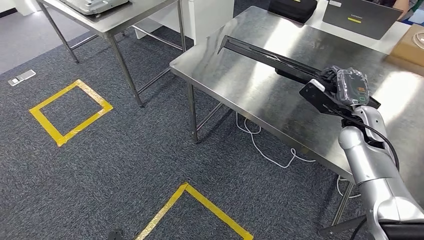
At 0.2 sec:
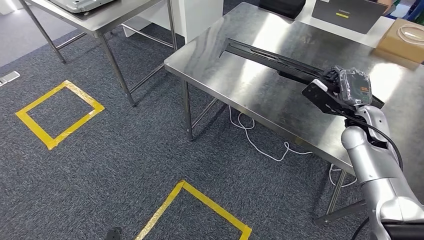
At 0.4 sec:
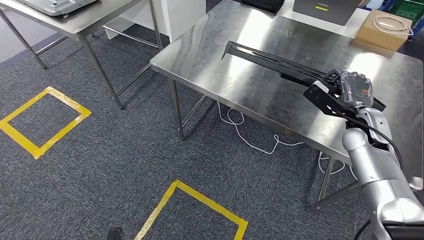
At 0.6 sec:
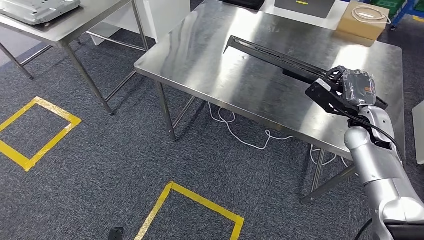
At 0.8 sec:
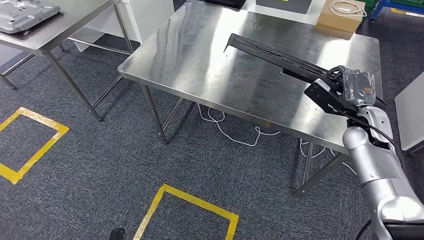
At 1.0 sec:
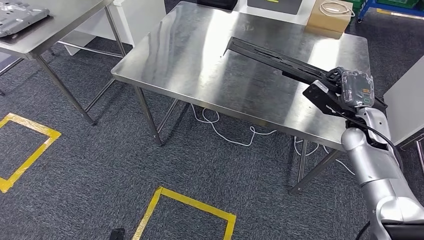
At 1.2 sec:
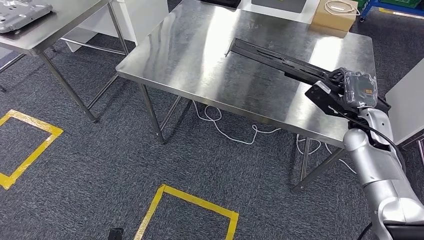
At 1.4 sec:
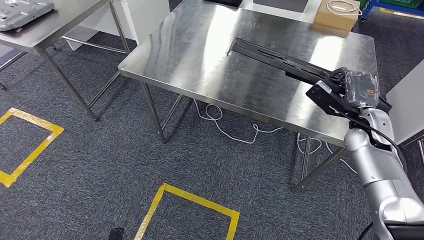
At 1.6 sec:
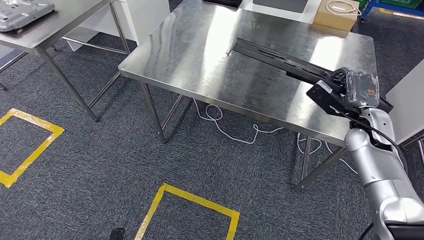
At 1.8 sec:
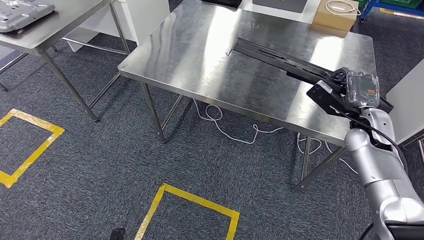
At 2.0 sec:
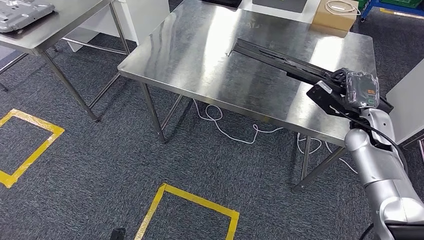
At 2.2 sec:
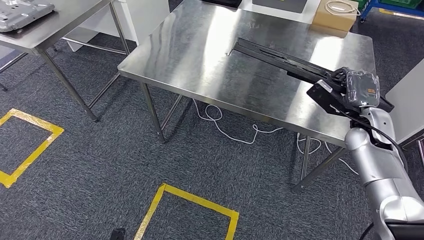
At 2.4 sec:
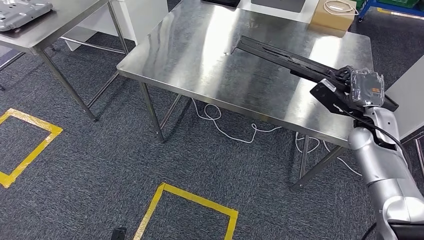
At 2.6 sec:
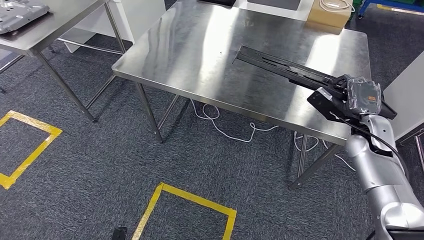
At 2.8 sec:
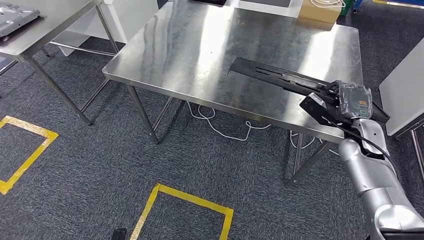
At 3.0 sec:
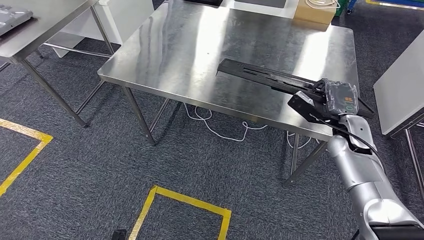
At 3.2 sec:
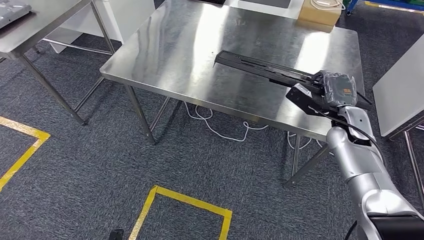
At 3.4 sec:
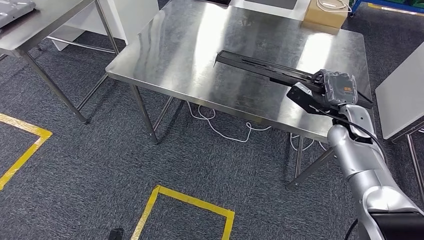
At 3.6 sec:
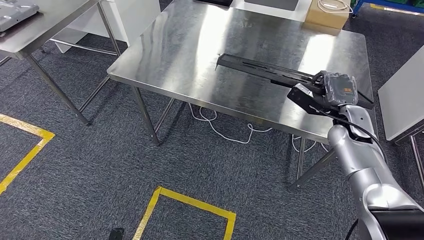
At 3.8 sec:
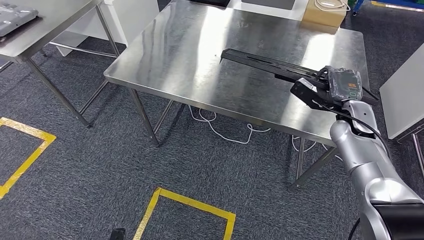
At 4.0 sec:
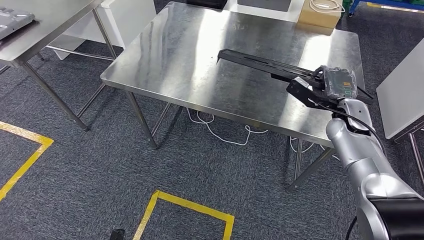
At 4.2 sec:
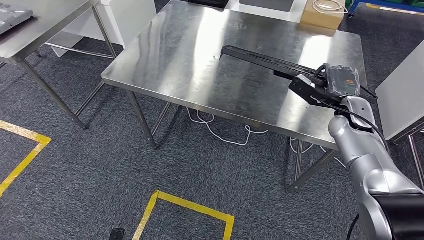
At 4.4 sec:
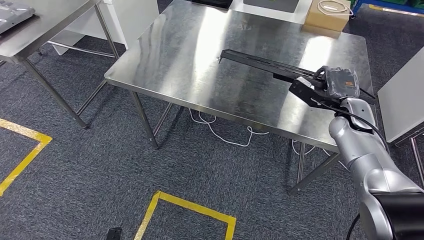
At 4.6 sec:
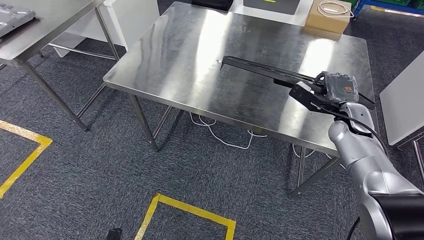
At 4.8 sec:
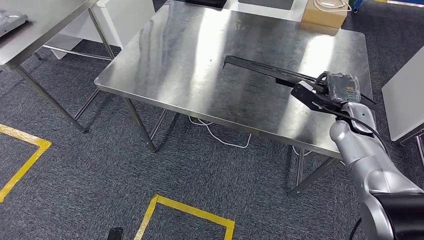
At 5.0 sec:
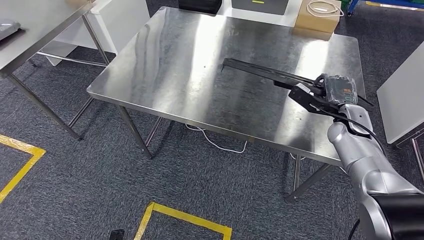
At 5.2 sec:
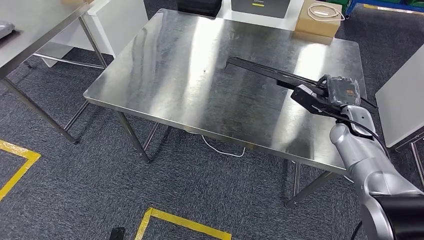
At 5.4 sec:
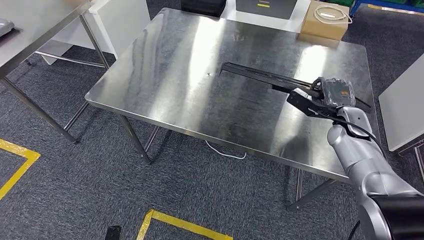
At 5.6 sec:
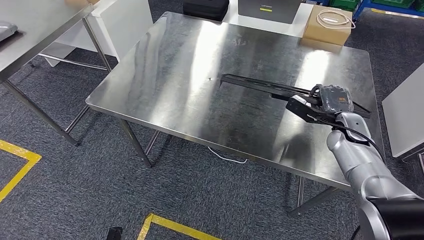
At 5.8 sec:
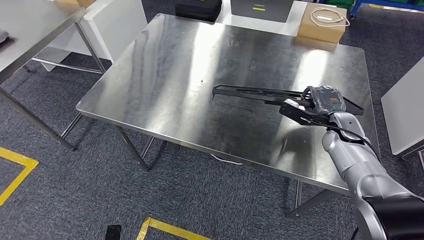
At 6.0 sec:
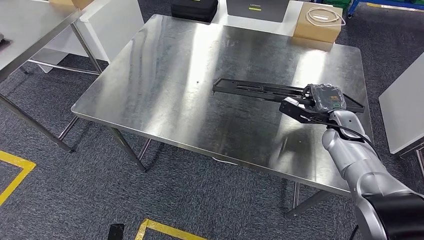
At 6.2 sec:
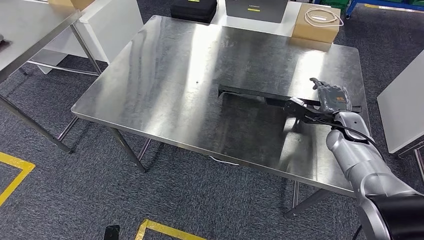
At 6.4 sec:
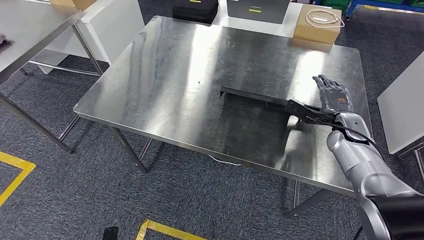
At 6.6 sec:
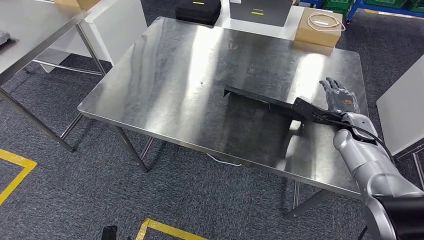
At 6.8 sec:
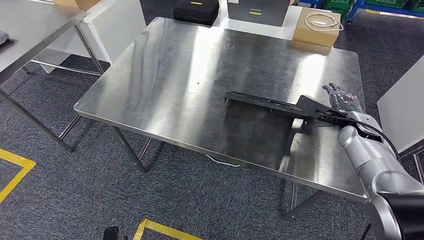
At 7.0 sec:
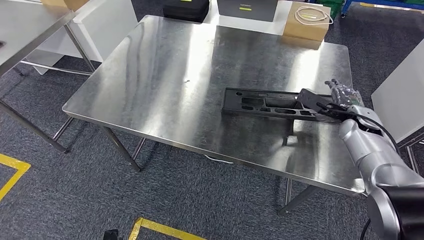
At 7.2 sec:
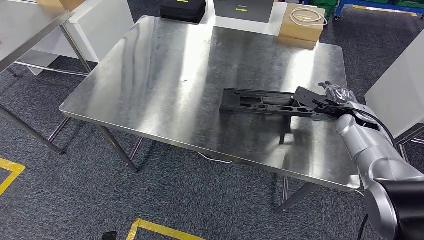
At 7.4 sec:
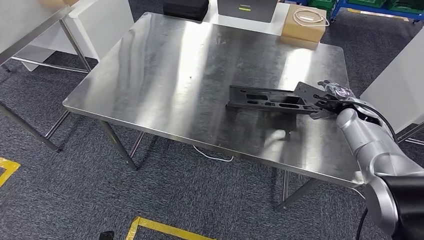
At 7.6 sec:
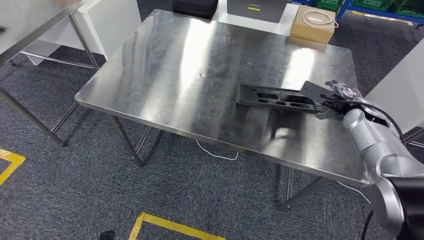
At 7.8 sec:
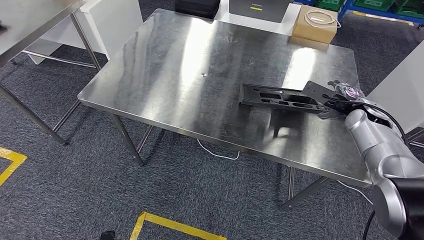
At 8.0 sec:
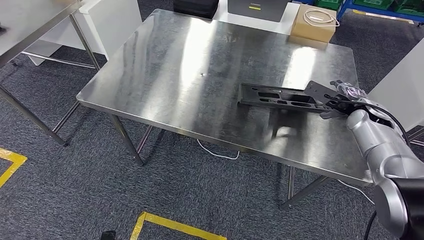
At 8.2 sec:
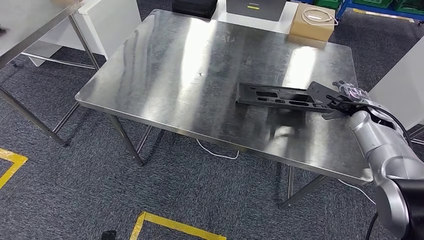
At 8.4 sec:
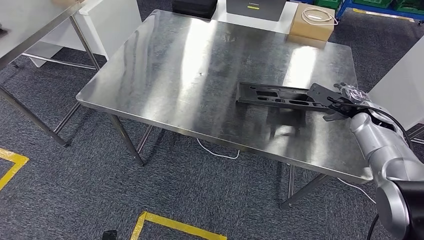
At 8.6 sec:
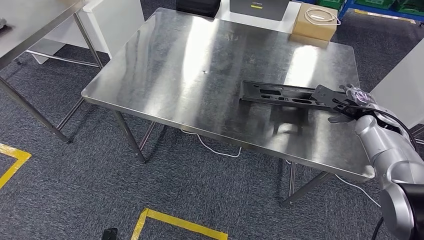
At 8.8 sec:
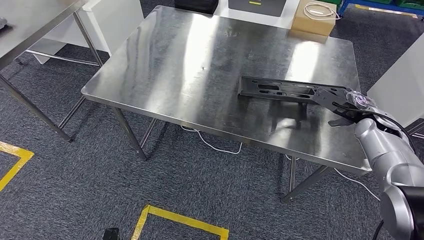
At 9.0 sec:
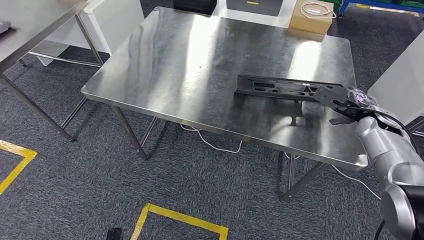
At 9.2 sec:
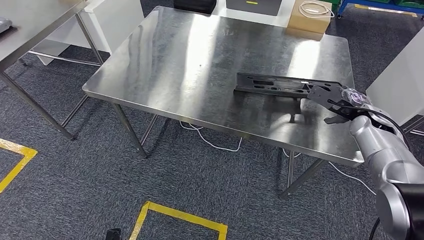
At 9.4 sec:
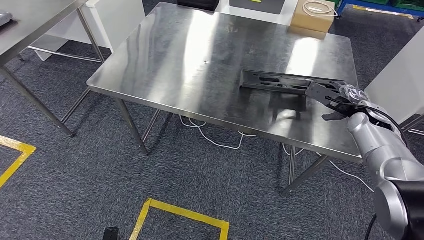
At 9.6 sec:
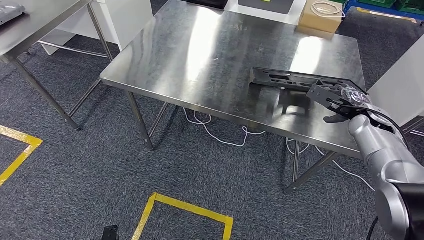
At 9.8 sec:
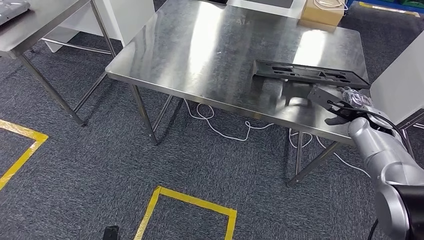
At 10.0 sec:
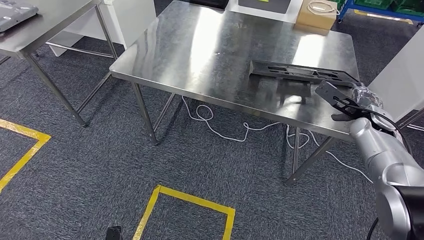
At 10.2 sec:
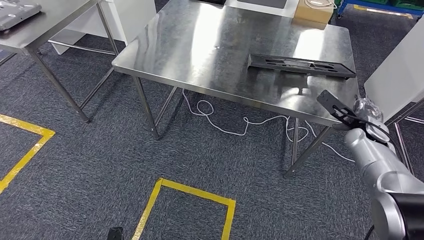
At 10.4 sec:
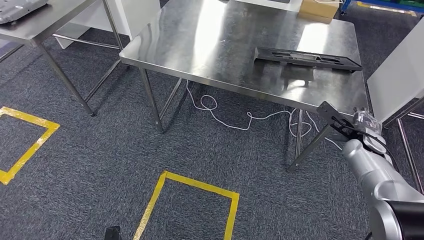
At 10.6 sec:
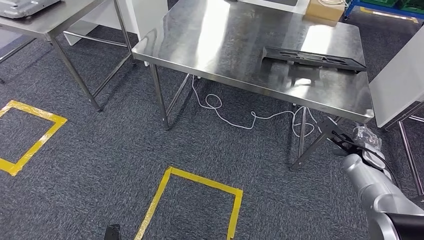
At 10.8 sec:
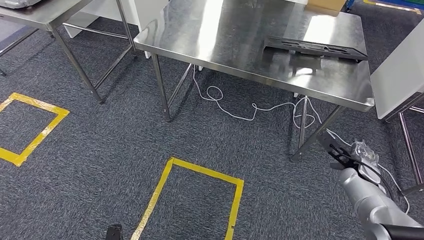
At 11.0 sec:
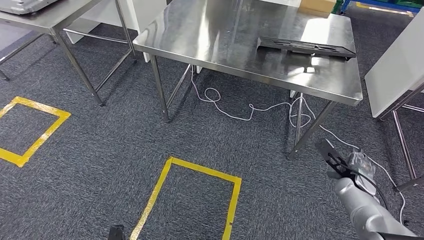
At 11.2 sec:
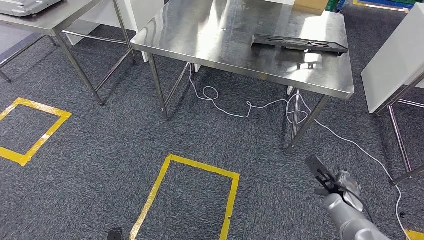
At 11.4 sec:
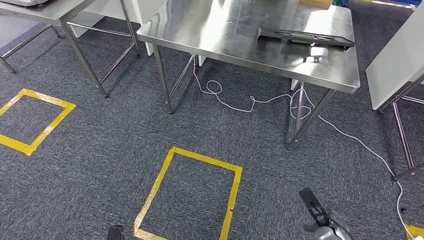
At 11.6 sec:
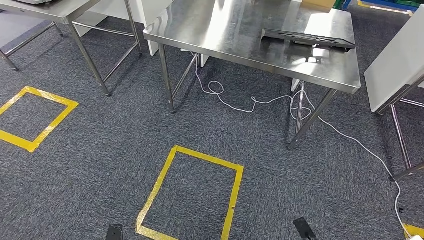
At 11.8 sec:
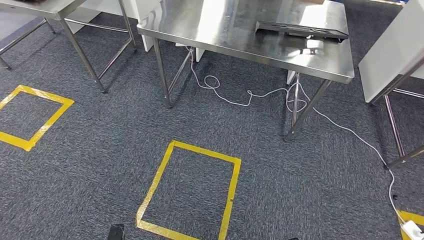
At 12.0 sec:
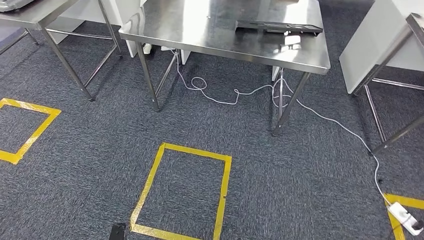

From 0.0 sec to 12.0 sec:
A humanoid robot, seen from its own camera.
Step, from 0.0 sec to 9.2 sec: Insert the large material into the corresponding slot on the workbench.

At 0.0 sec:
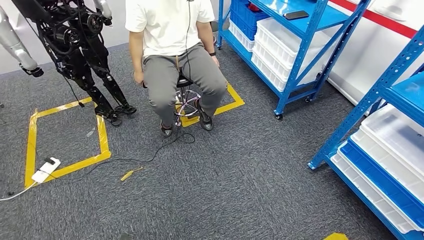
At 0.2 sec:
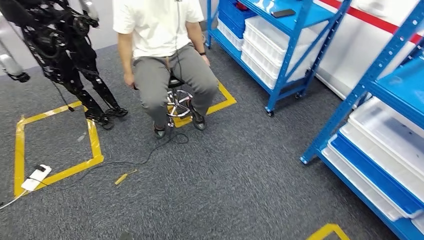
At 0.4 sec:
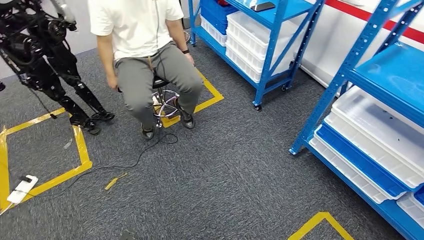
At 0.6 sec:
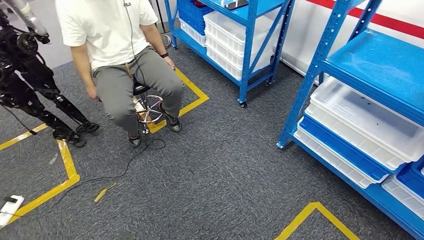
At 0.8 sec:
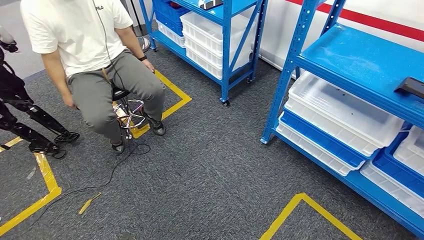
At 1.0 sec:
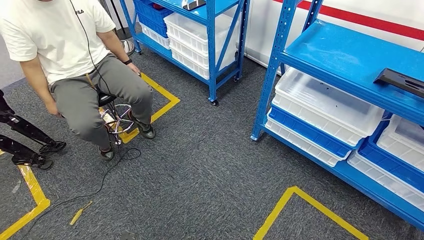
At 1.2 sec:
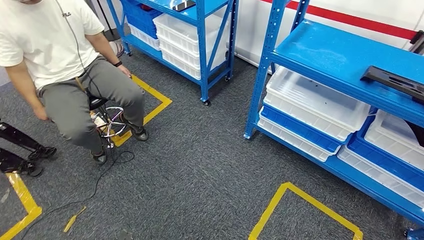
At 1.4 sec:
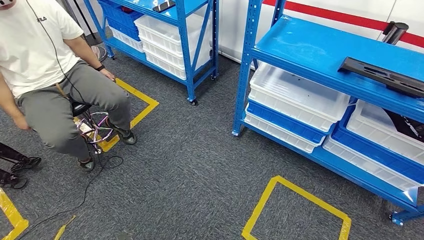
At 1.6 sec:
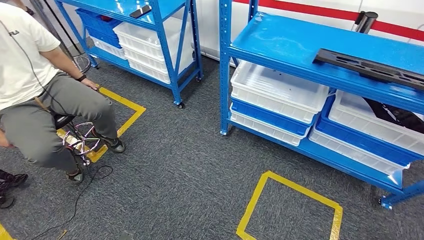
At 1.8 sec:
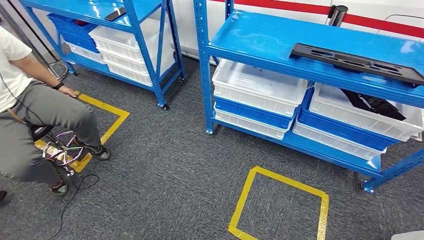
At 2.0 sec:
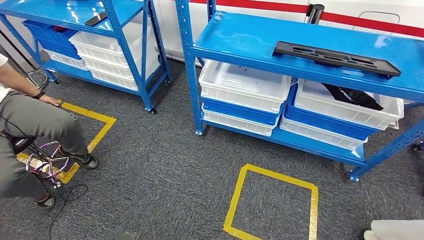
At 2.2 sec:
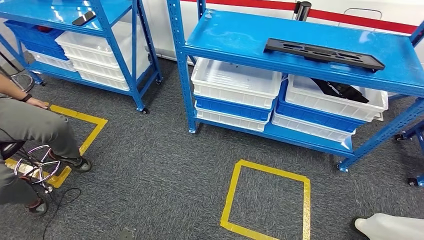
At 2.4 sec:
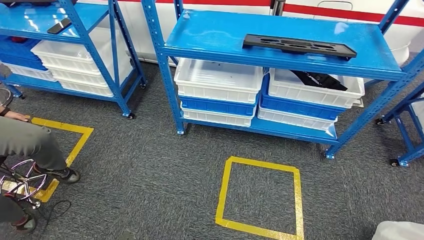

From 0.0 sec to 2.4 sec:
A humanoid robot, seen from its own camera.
Step, from 0.0 sec to 2.4 sec: Return to the initial position at the shelf.
